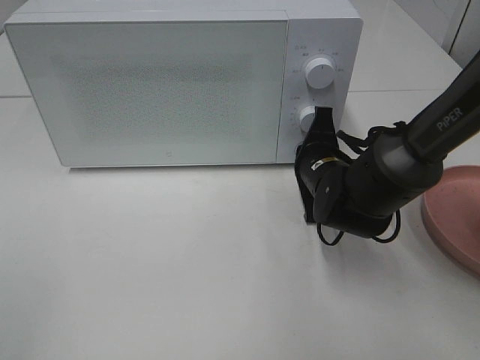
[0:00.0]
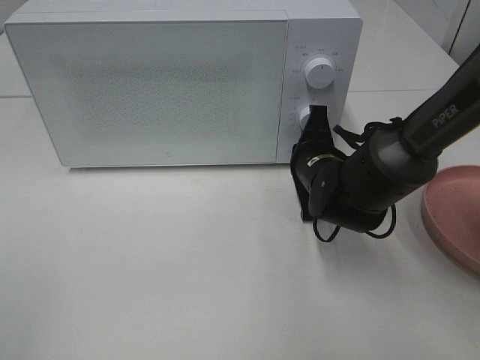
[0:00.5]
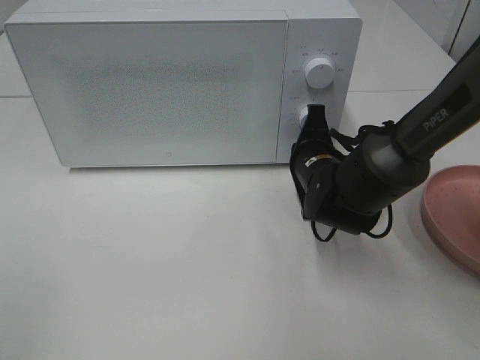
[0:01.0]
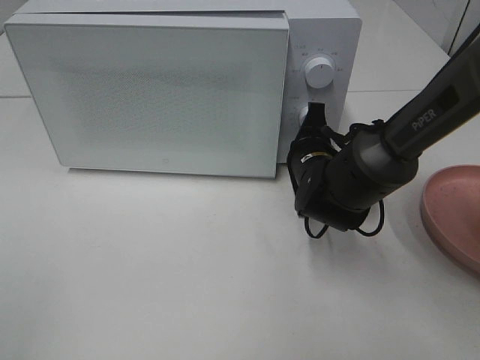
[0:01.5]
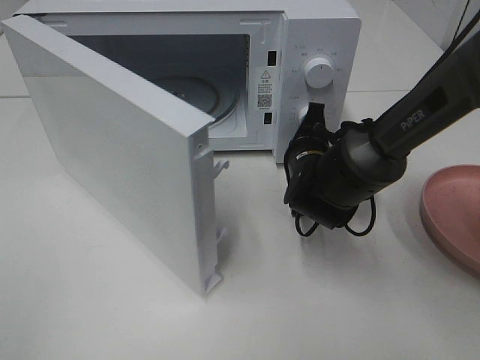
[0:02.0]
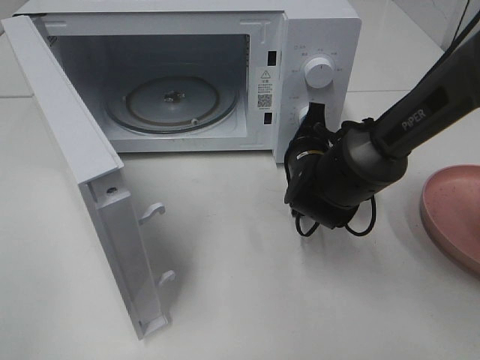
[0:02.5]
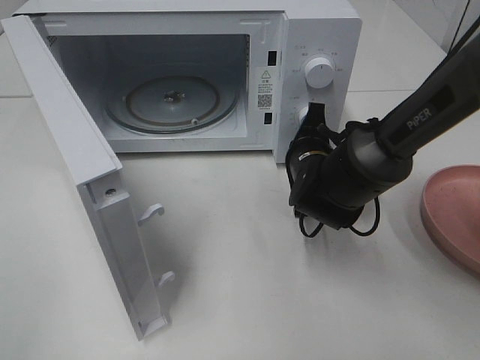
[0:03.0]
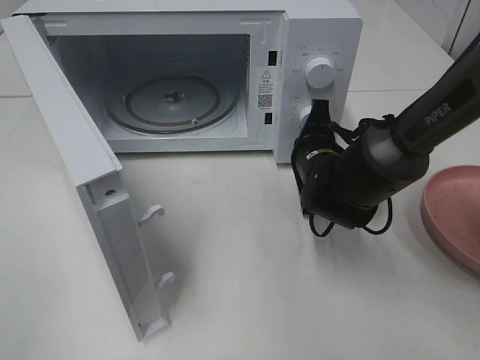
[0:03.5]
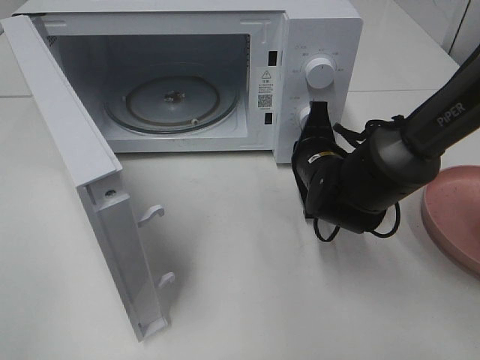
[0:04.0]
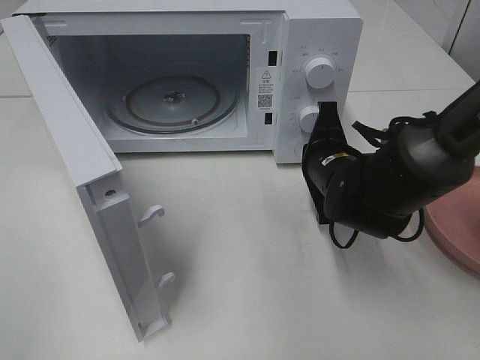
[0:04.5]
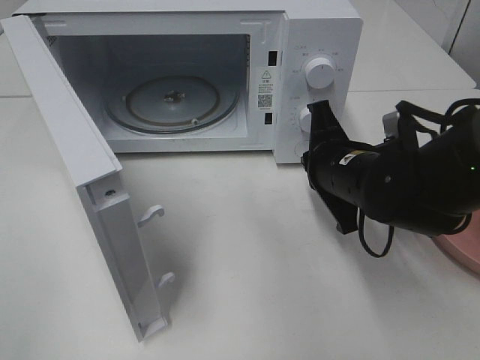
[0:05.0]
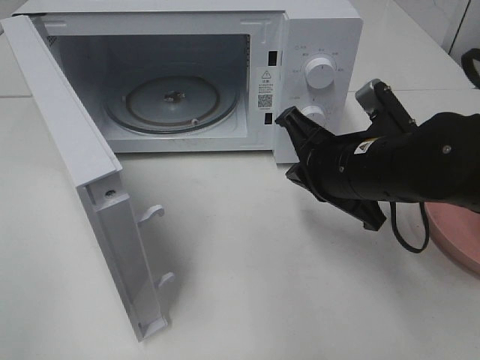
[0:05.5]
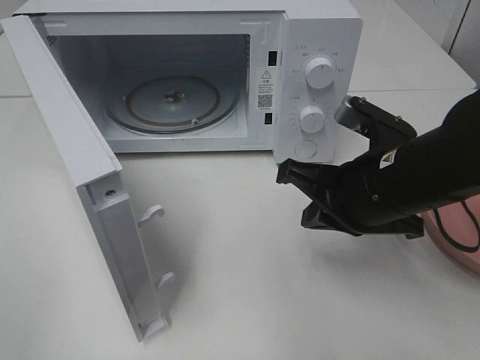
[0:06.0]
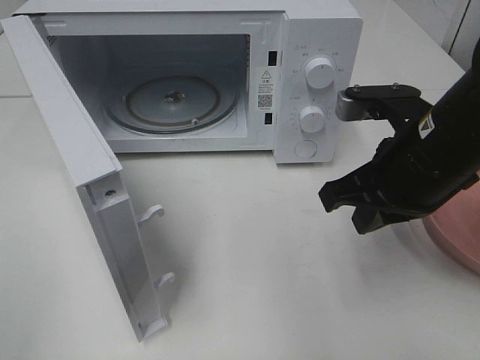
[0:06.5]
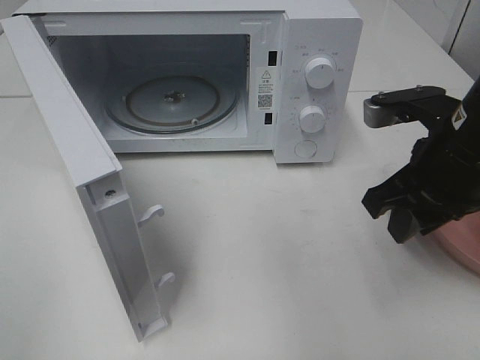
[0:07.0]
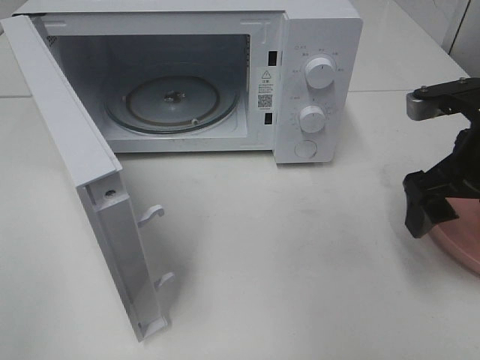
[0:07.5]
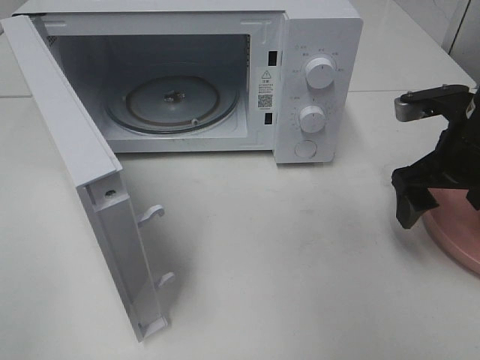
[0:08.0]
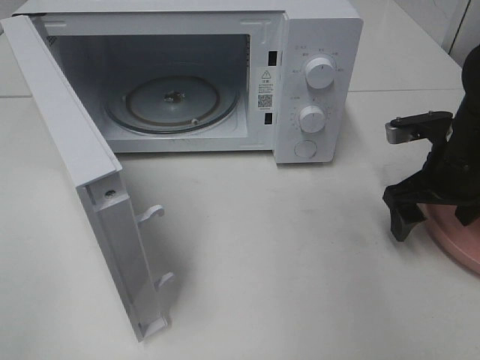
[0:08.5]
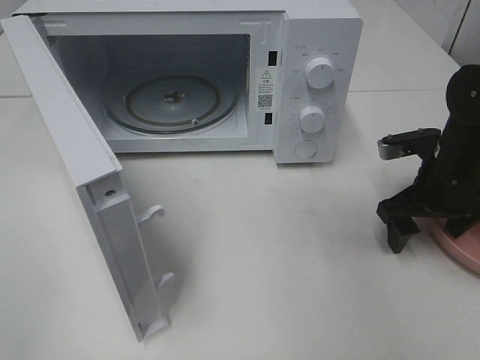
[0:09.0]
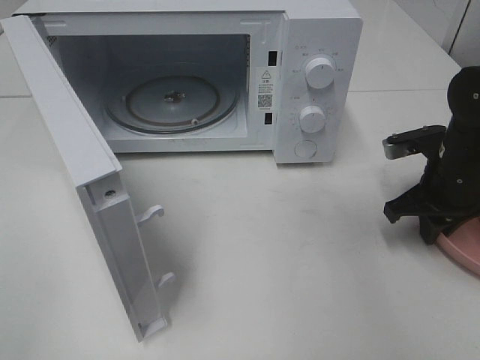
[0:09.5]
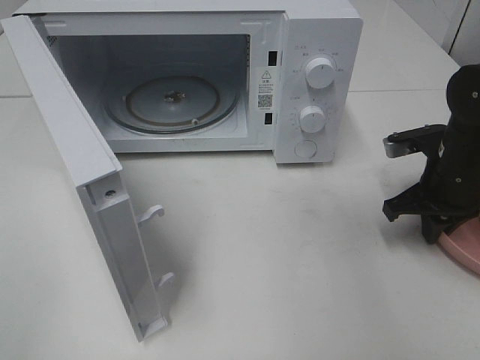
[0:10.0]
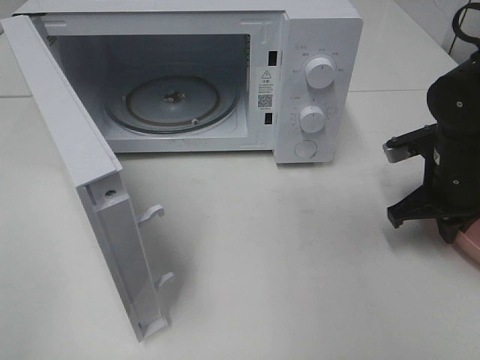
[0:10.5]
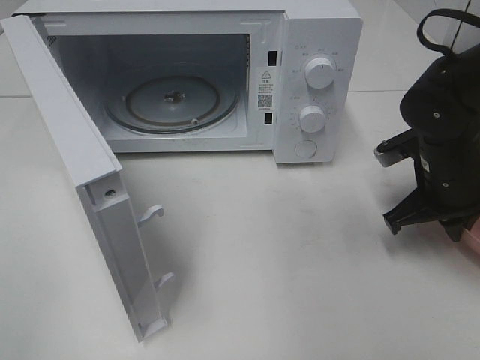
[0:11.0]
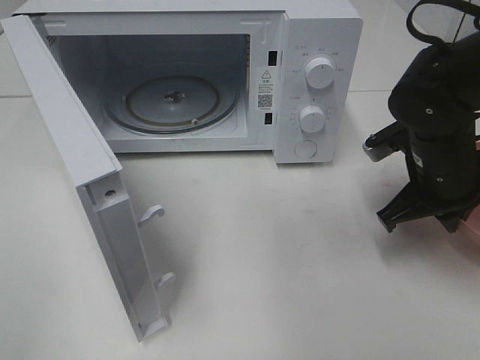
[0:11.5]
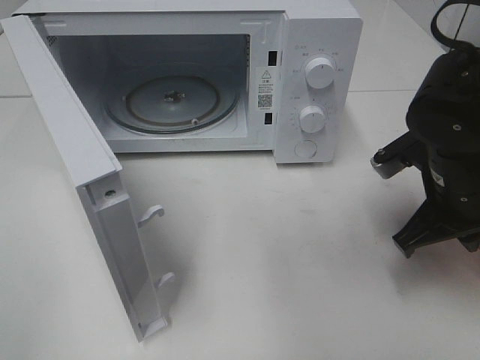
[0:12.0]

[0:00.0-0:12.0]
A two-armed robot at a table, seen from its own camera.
Task of the whole recording: Heat the burger.
Step, 0:00.0 to 0:04.0: Right hand: press the switch.
Step, 0:04.5 to 0:10.5: Right hand: grab the plate with the hamburger.
0:04.0 to 0:06.0: The right gripper is displaced backward and upward by about 15 cm.
0:06.0 to 0:08.0: The right gripper travels to the right and forward by approximately 10 cm, and opens its fingers.
0:08.0 to 0:10.0: The right gripper goes about 5 cm downward, and closes up.
0:10.0 to 0:12.0: The right gripper is displaced backward and to the left by about 10 cm.

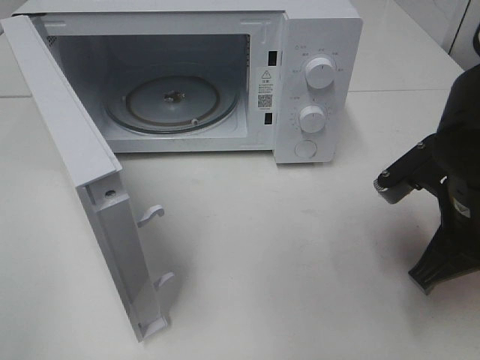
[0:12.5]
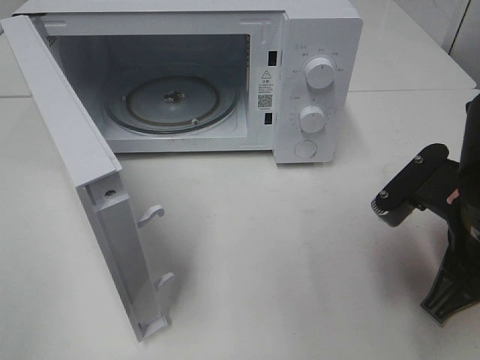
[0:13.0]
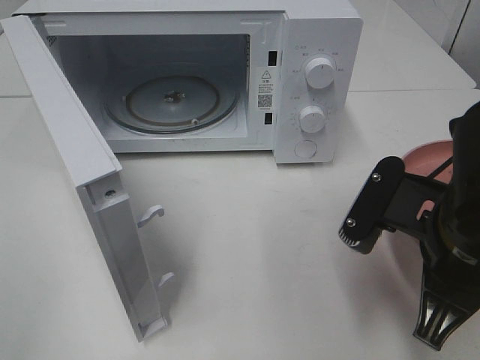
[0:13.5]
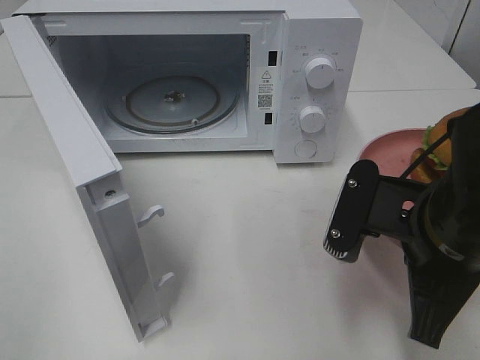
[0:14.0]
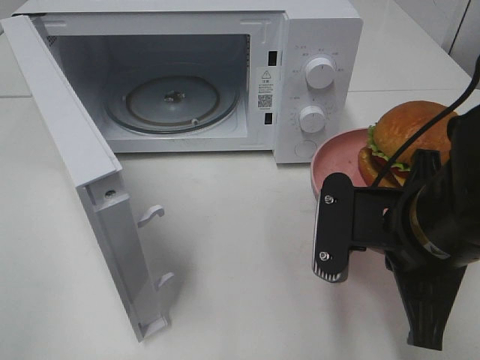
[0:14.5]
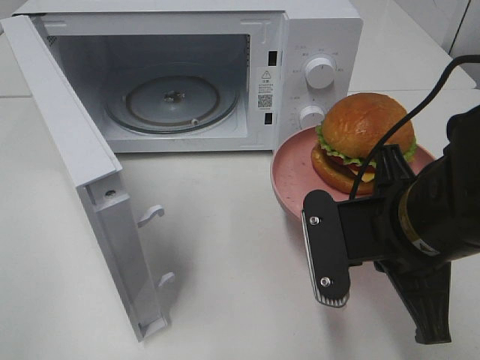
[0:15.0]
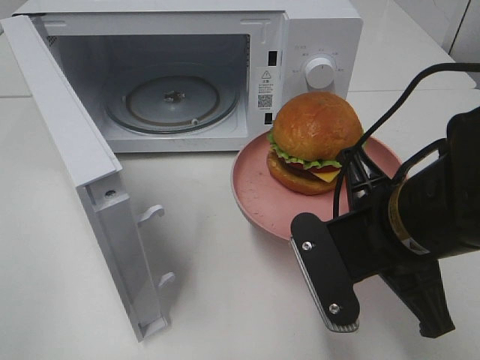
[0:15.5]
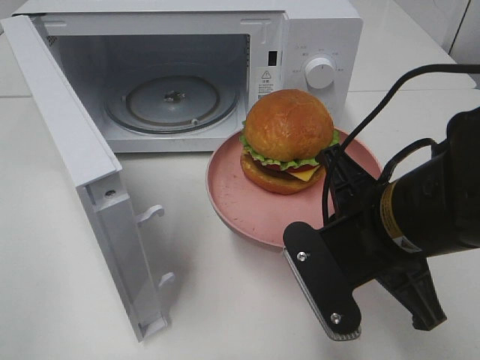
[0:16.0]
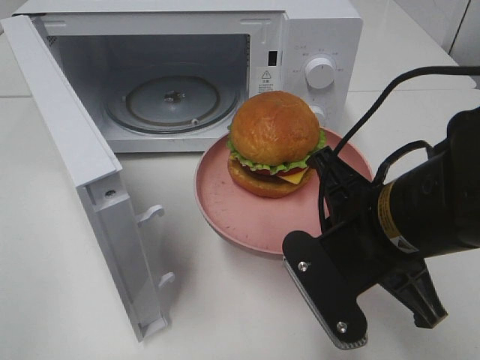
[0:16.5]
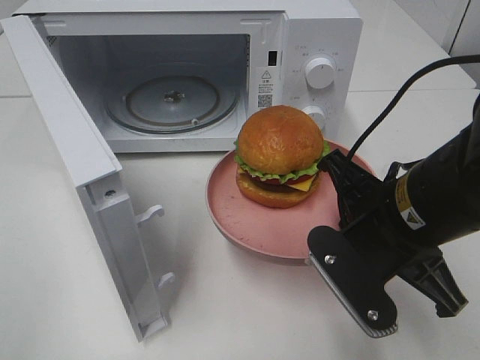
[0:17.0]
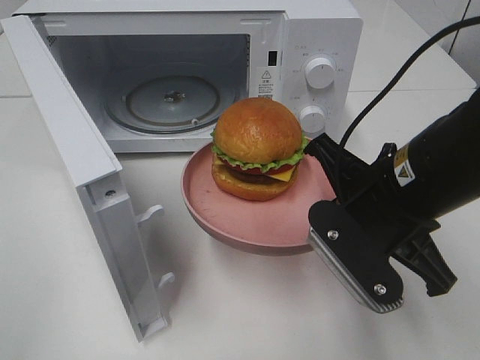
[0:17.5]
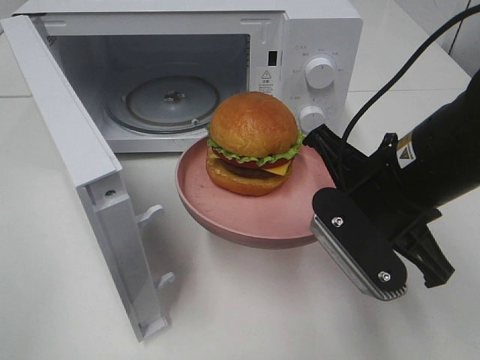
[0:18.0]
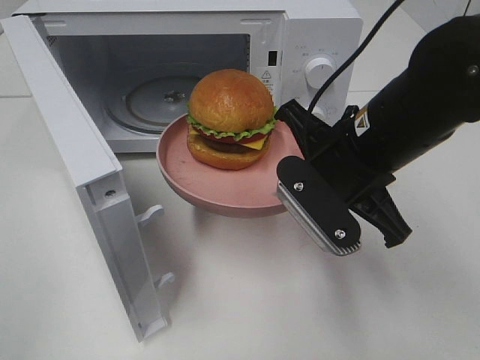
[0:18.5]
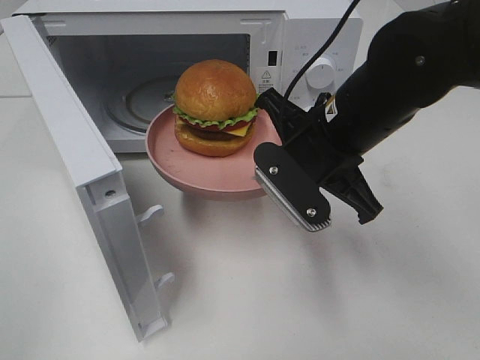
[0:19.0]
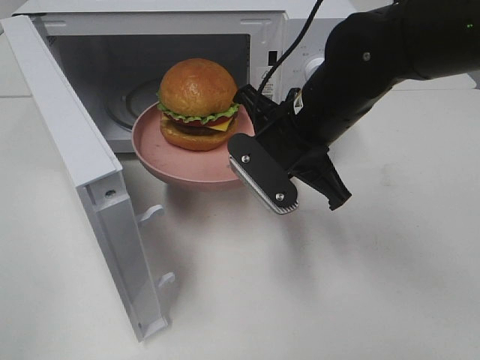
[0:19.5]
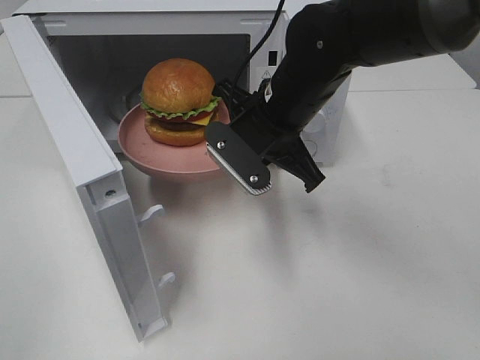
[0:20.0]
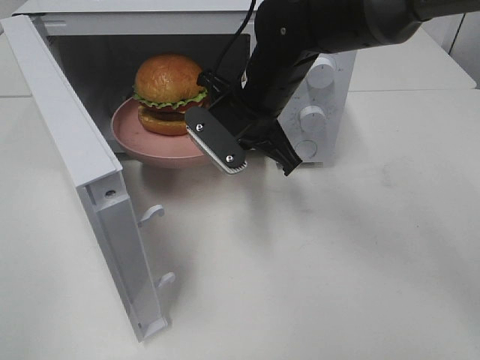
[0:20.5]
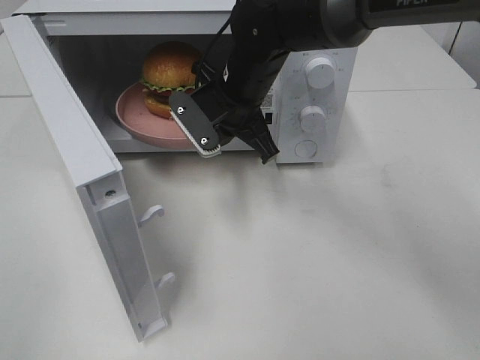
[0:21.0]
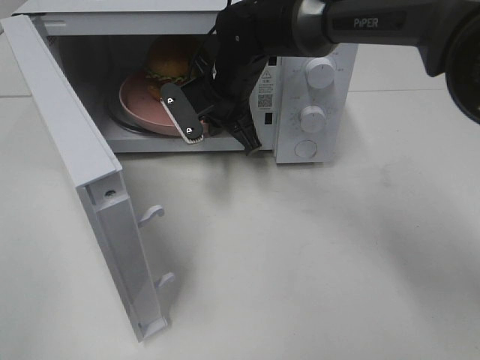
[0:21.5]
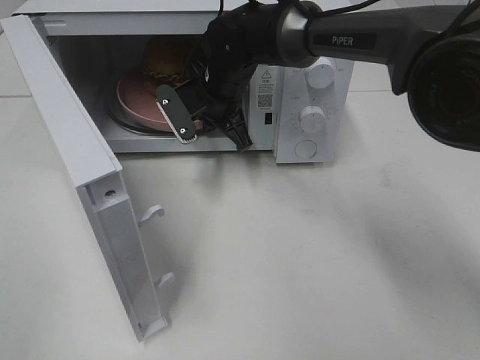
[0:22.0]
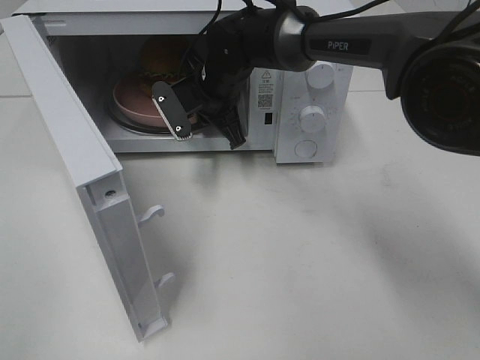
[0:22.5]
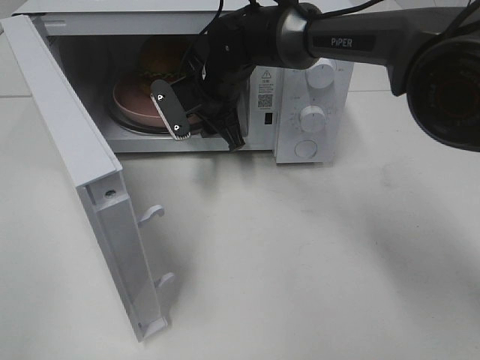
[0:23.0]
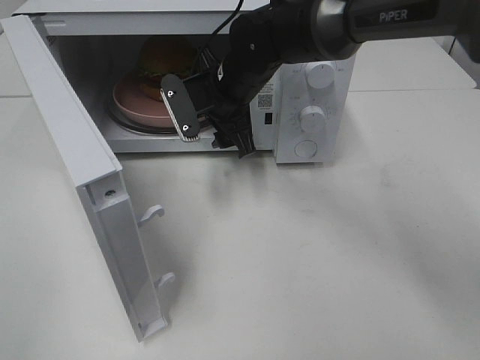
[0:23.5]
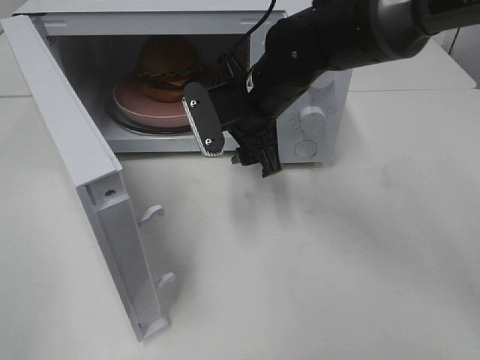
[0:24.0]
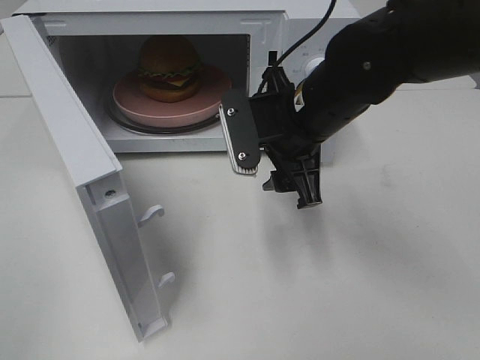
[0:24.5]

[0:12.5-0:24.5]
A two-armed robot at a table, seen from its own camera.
Task of the whole recording: Heat the burger.
Step, 0:12.5 to 0:22.5: Right hand: place the plate in the microwave.
0:12.5 to 0:14.5: The right gripper moves to the left, approximately 5 cm.
0:16.5 to 0:18.5: The right gripper is displaced forward by some 10 cm.
0:18.5 to 0:20.5: The right gripper shifts about 15 cm forward and to the left.
0:20.5 to 0:22.5: The right gripper shifts roughly 10 cm forward.
0:22.5 to 0:24.5: The right gripper moves backward and to the right, about 20 cm, and opens.

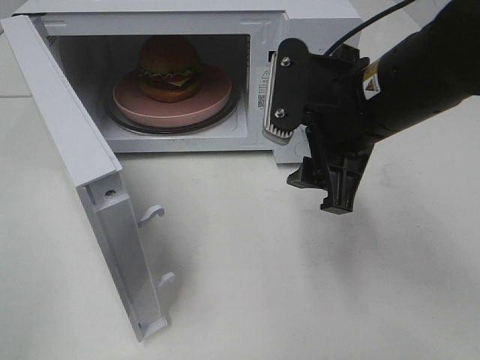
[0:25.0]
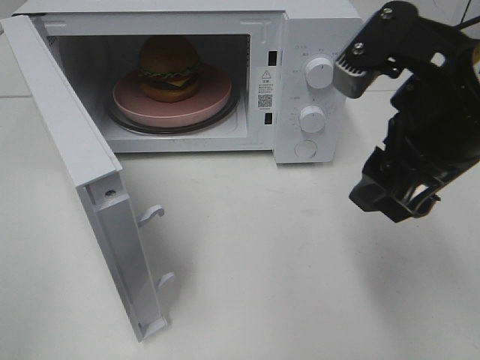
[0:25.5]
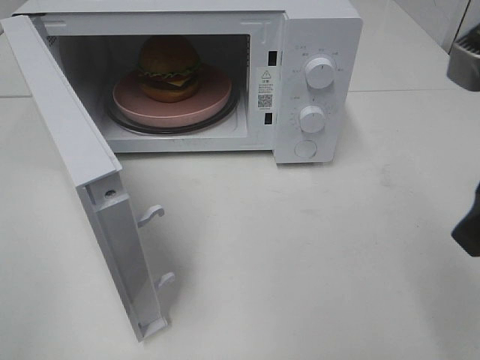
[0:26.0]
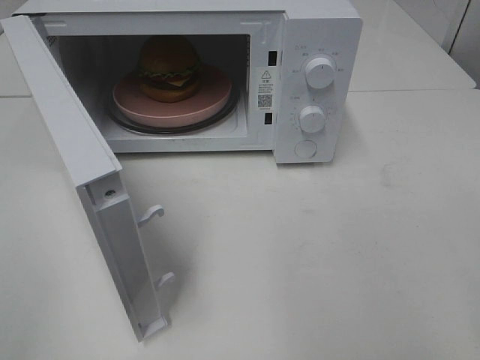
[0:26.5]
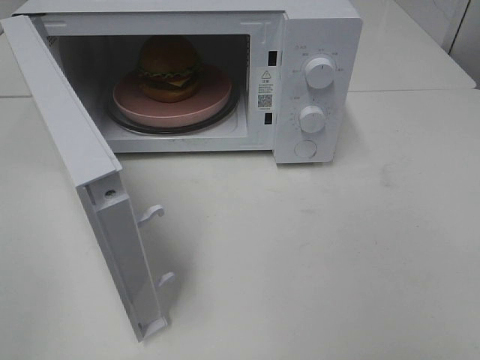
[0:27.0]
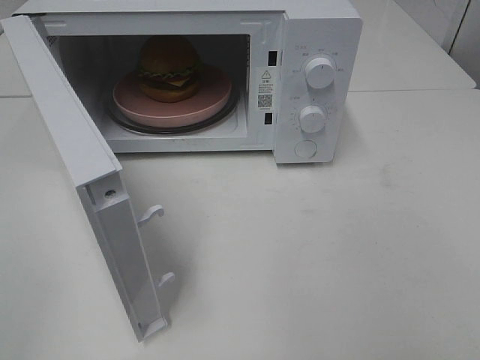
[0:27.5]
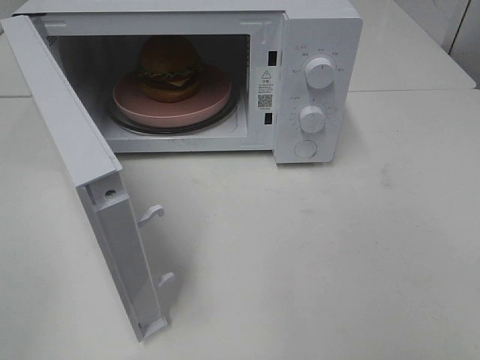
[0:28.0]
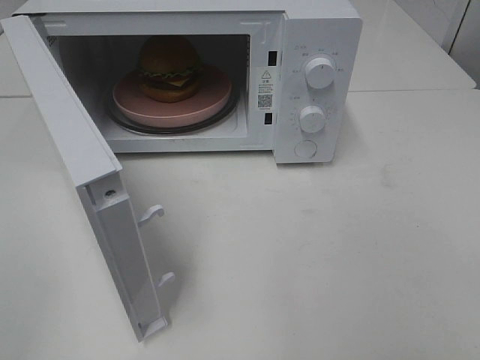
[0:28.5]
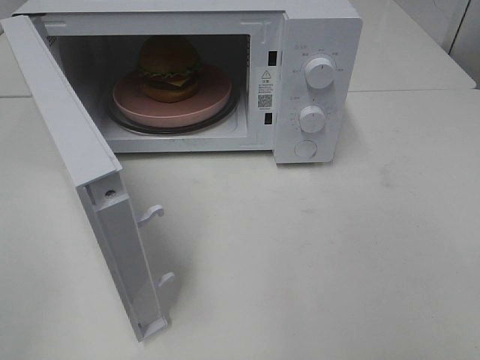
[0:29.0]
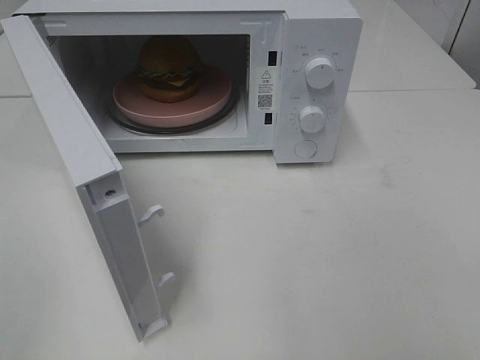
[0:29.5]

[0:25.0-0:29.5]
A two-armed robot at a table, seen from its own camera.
Task of the whole recording: Heat the burger.
0:25.0 to 0:27.0: The right gripper heads backward and to the right, covering about 25 cm.
